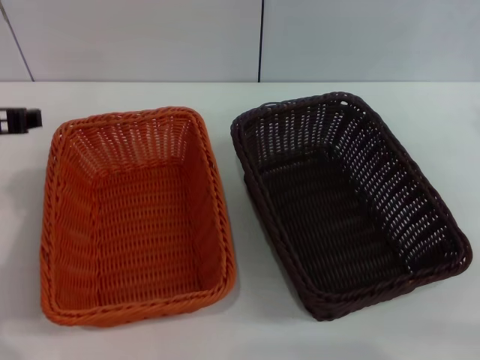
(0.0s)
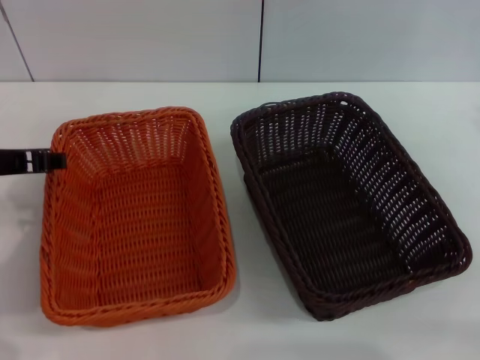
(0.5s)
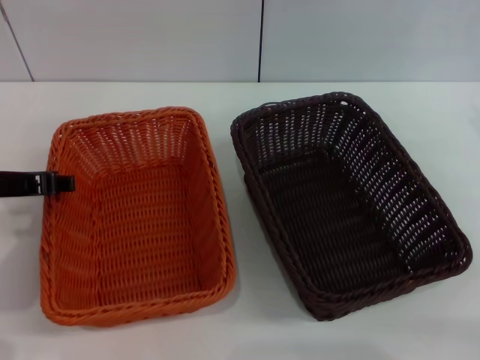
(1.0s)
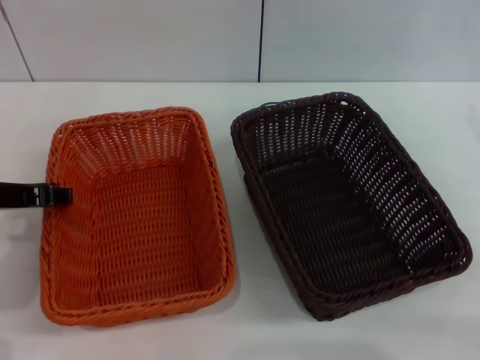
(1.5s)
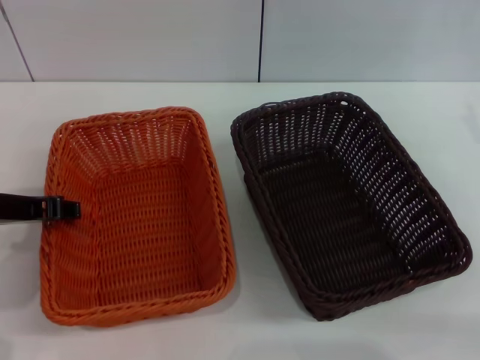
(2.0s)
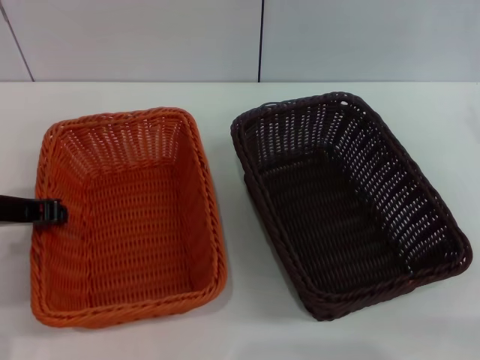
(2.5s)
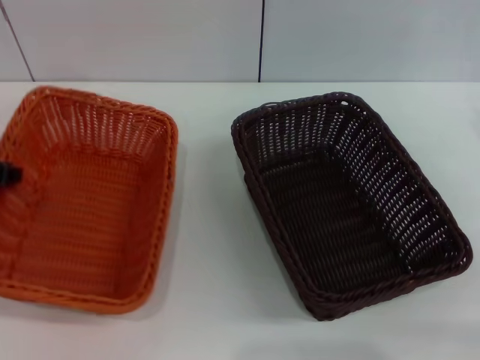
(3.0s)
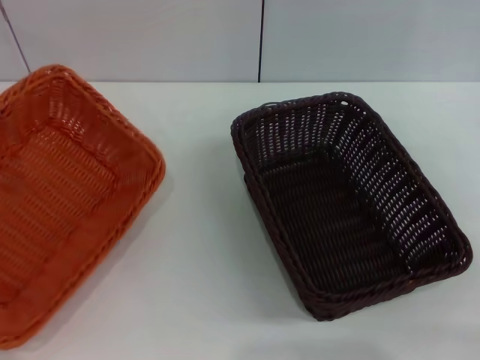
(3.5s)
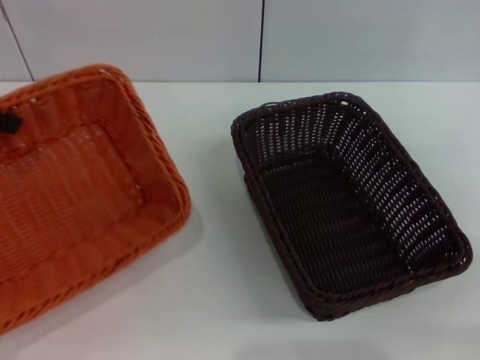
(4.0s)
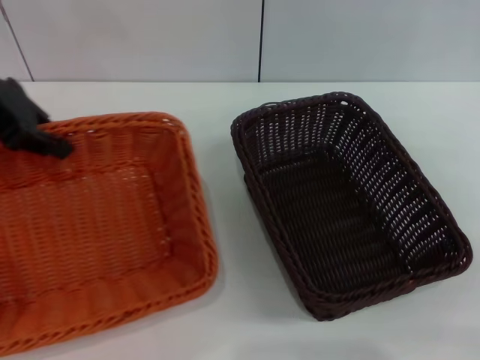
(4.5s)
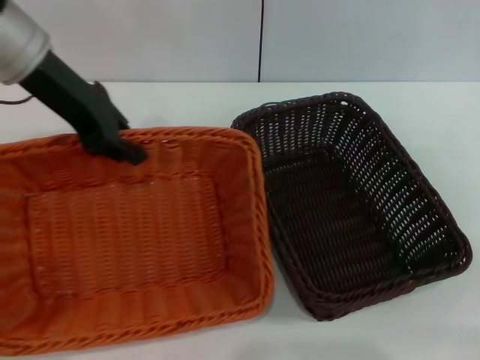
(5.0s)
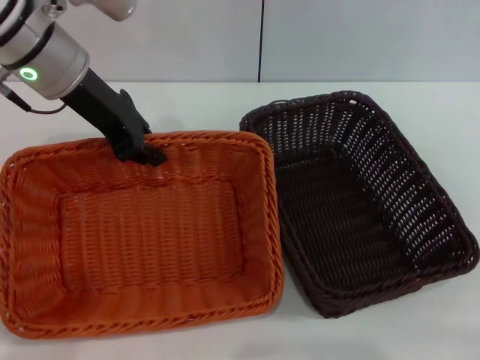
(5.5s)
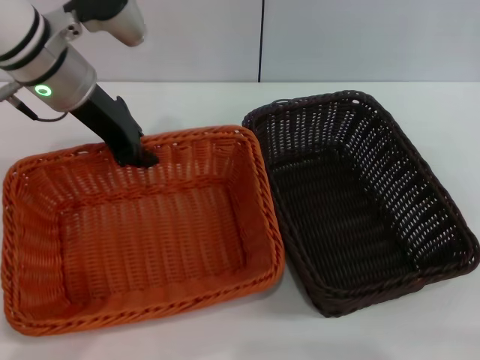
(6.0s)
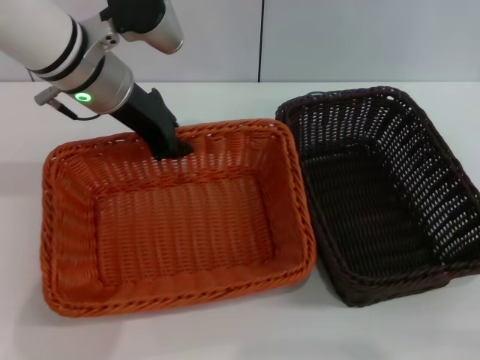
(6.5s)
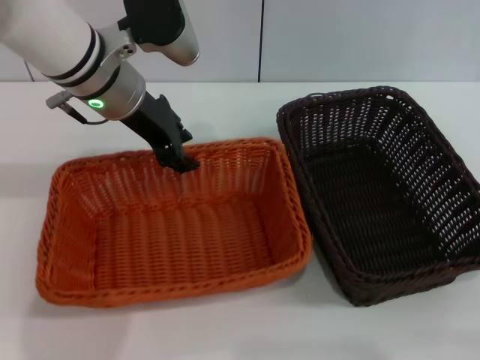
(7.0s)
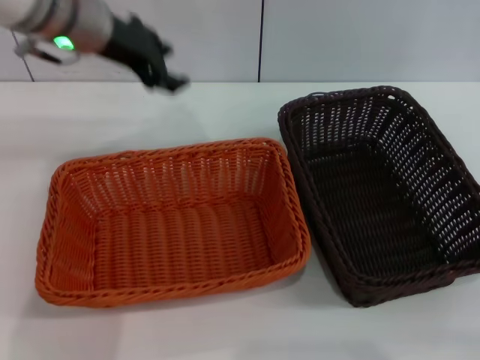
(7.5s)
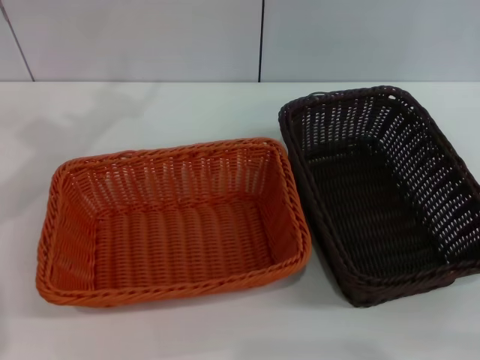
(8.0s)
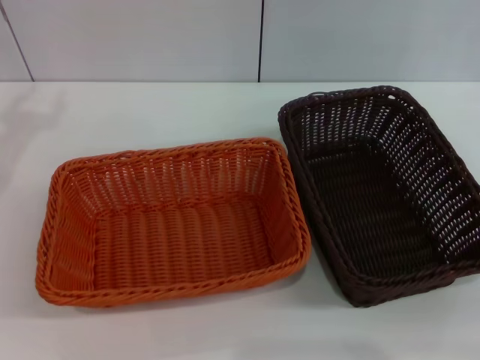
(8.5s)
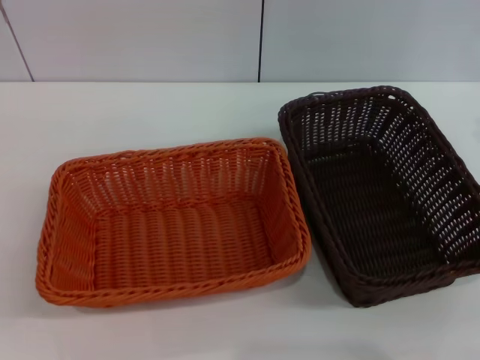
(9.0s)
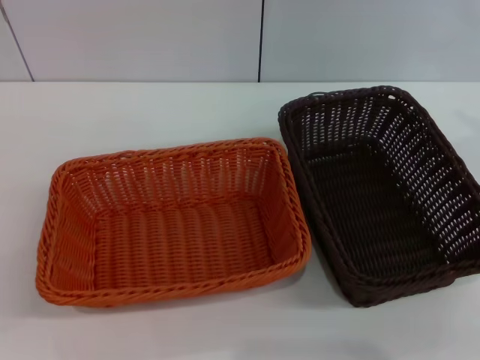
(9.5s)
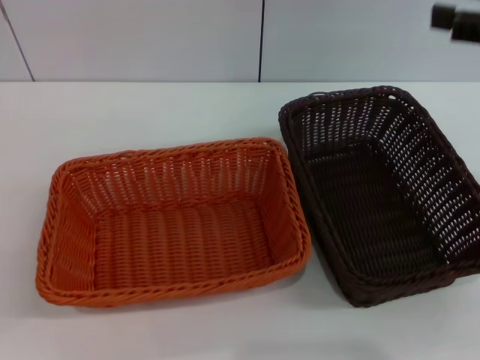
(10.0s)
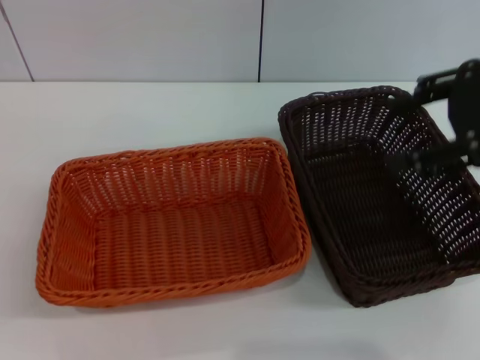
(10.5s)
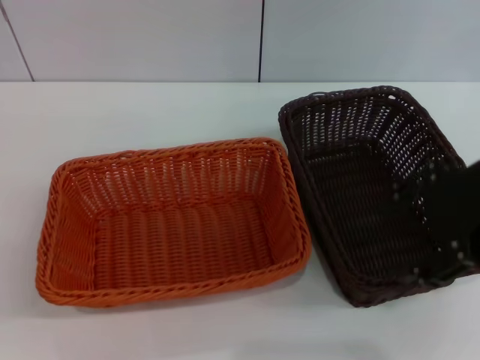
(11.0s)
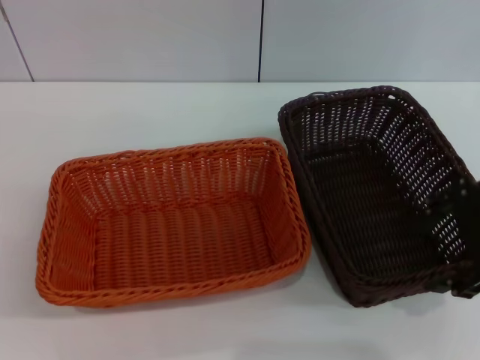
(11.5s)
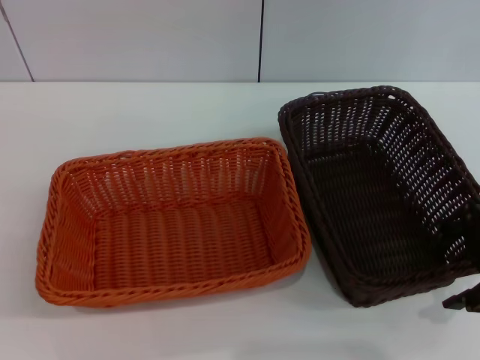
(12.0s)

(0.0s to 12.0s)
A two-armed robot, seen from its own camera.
Step, 0.0s - 3.0s: Pick up the light basket with the left gripper.
Step, 3.5s - 6.5s: Place the light basket in the center of view with the left gripper.
0.0s - 2.0s: The left gripper goes approximately 5 cm downward.
2.0s - 4.0s: The left gripper heads upward, to the left and forward, covering approximately 15 cm, and closes its fingers.
4.0s - 6.0s: The left gripper travels to the right, forward and downward by some 20 cm.
6.0s - 8.0s: The left gripper goes about 10 cm to the left and upward, and opens.
8.0s - 10.0s: The right gripper goes approximately 15 cm upward and to the left.
10.0s - 12.0s: The right gripper heads downward, covering roughly 5 cm.

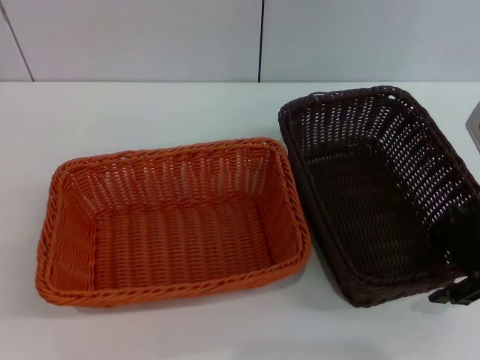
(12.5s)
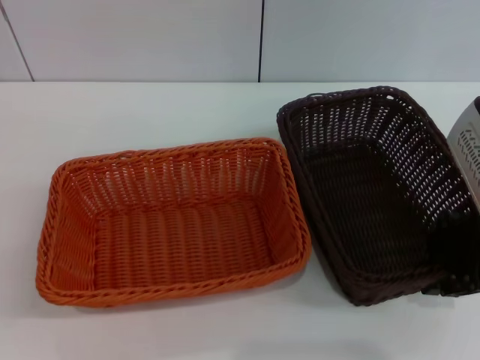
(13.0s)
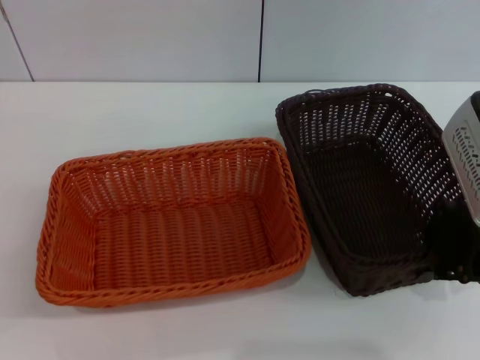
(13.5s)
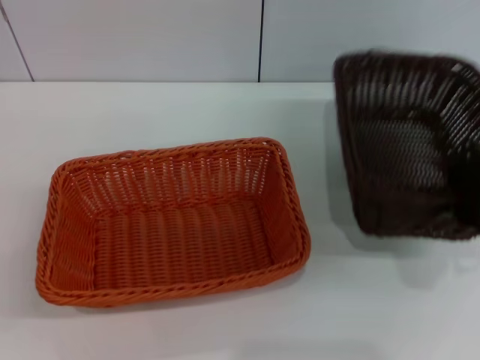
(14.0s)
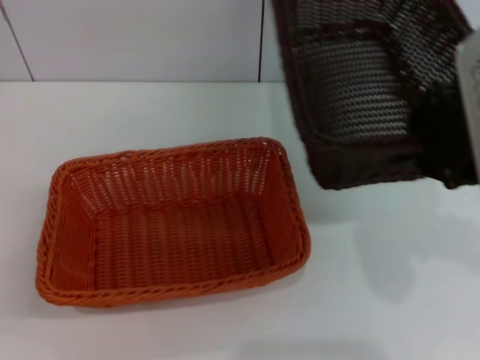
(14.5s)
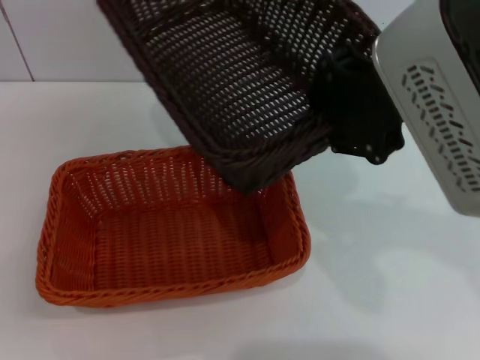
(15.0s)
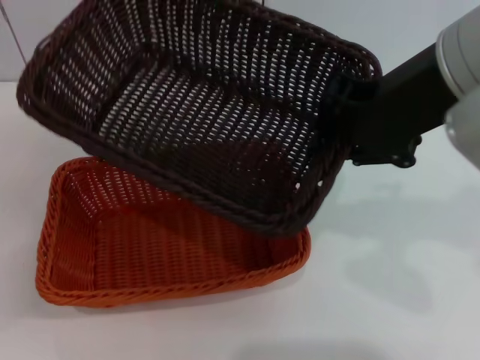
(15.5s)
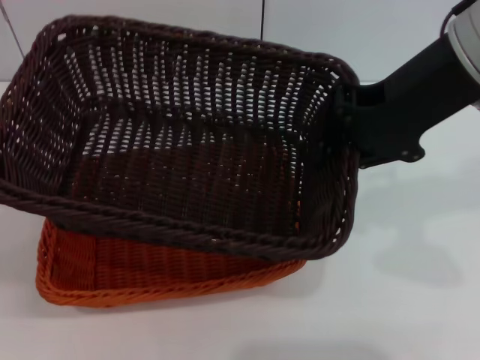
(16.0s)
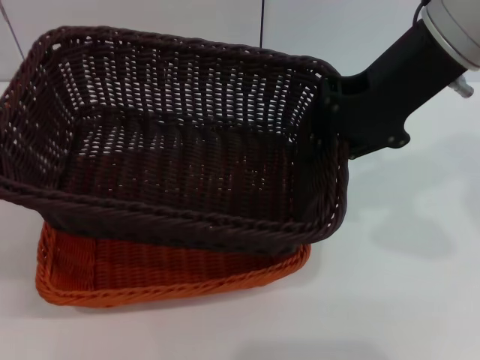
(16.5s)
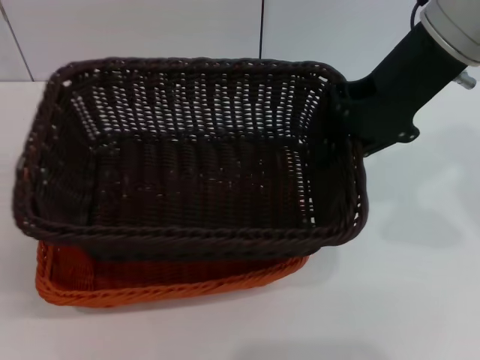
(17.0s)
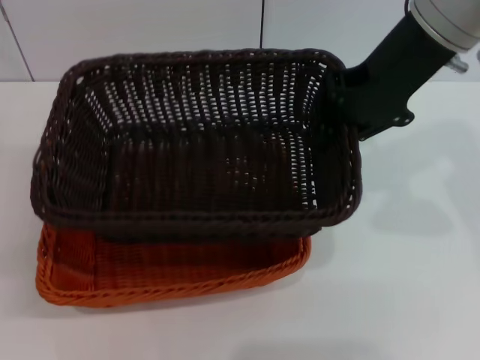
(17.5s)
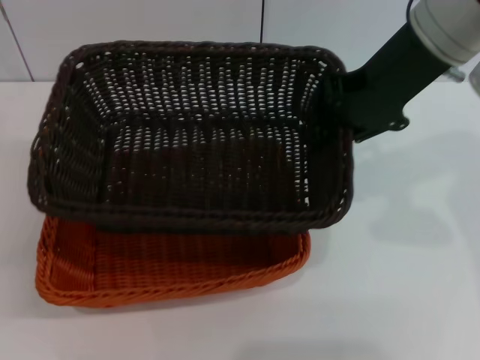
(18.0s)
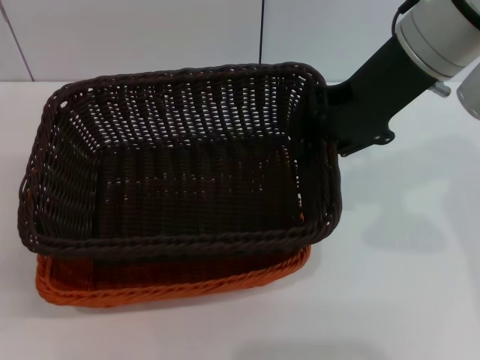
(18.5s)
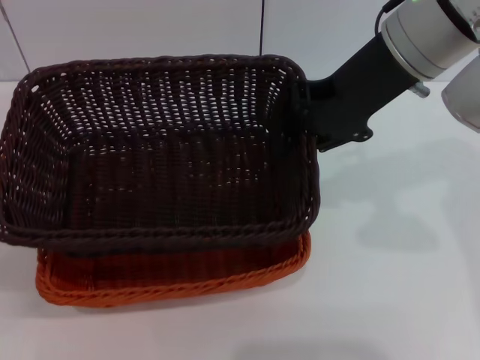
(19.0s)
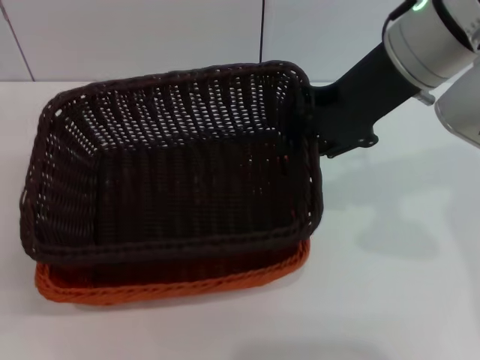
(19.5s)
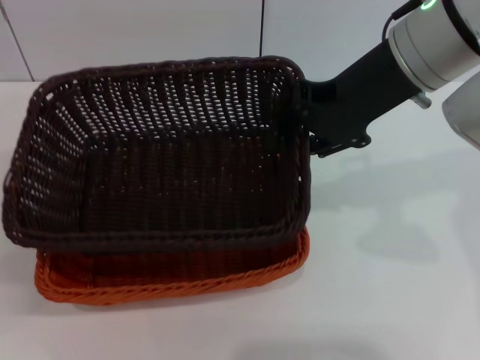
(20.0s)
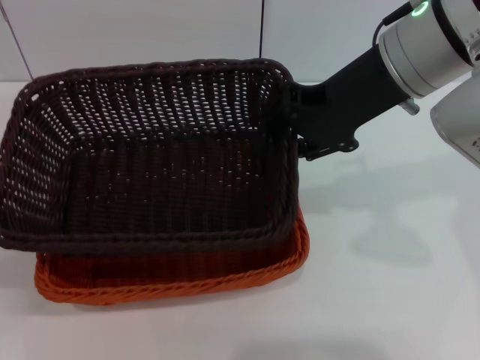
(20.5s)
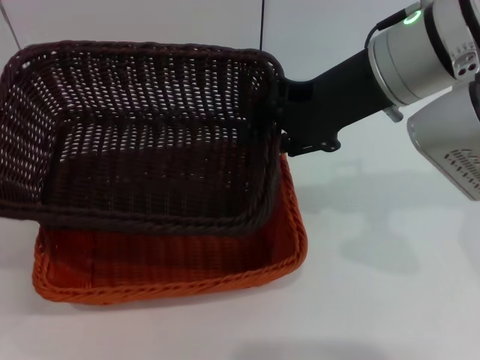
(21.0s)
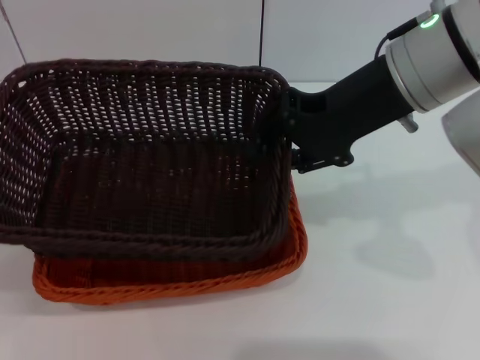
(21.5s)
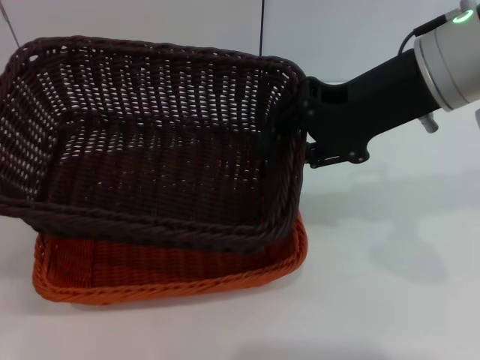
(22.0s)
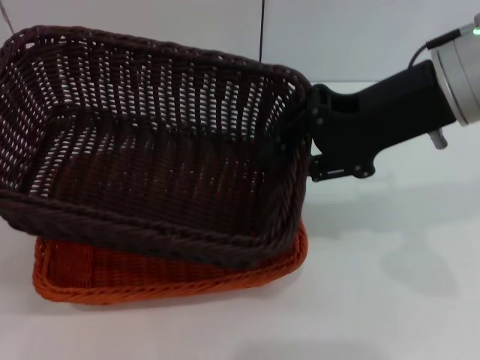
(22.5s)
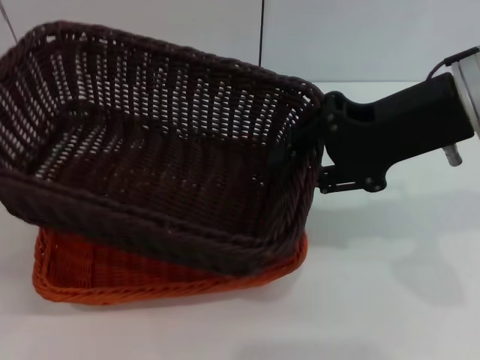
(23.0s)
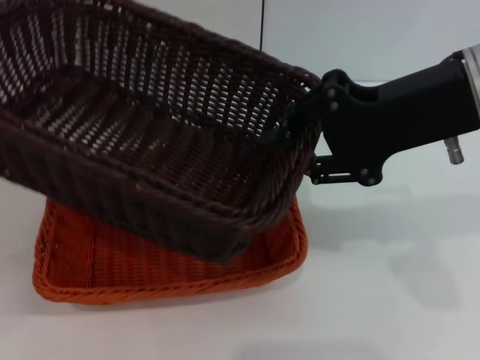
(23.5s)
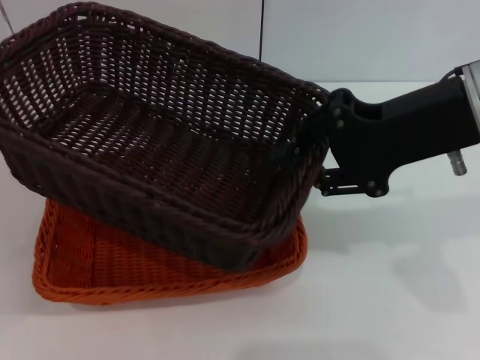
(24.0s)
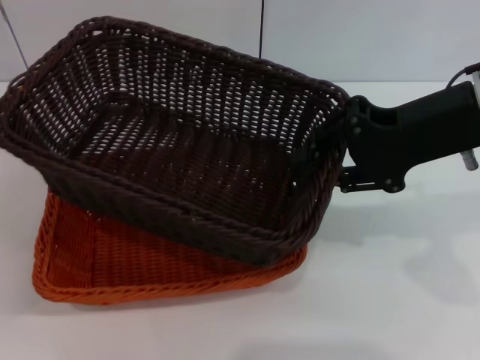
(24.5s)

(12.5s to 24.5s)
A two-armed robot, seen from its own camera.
12.5s - 14.5s: The right gripper heads upward and to the left, covering approximately 10 cm, and closes its fingers.
14.5s - 16.5s: The right gripper is displaced forward by approximately 10 cm.
16.5s - 20.5s: There are only small adjustments of the grippers.
22.5s - 24.5s: The grippers make only small movements.

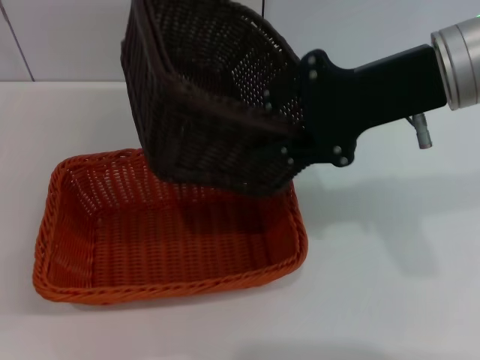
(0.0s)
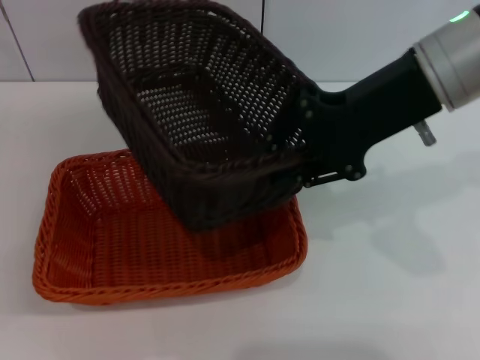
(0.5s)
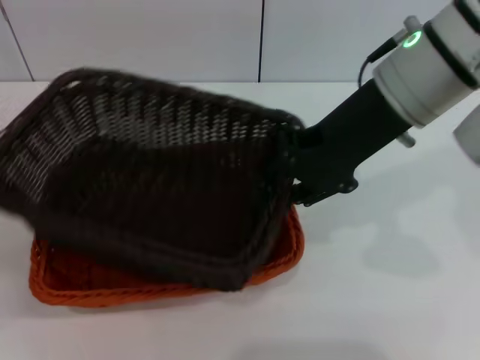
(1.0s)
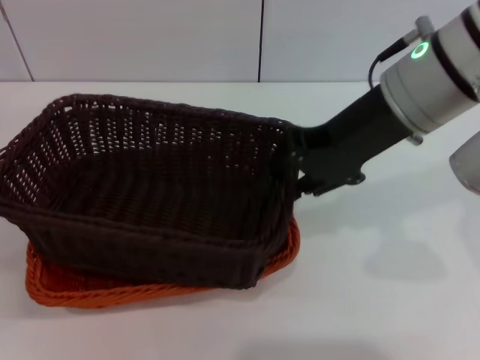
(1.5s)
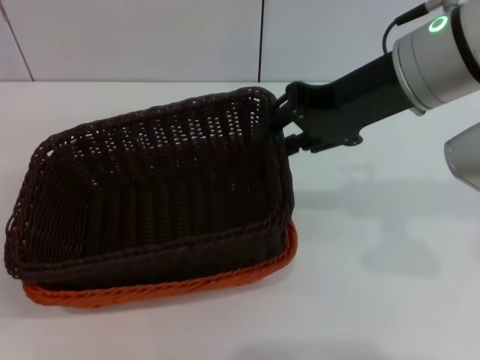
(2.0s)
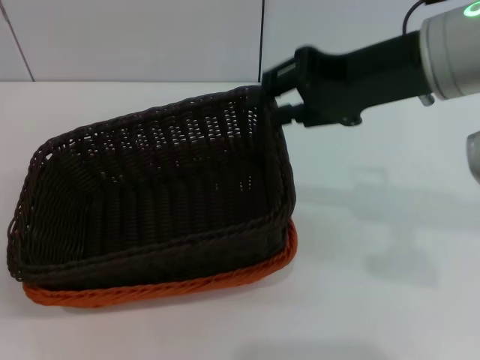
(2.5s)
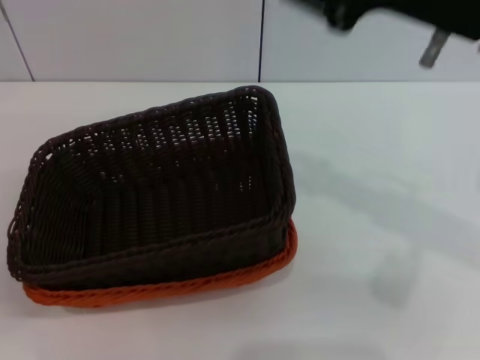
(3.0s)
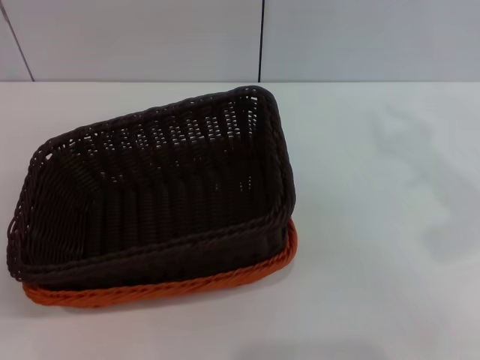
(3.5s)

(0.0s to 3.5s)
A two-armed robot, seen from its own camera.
Step, 0.0s - 2.0s: Place the dark basket on the light basket with the right gripper.
2.0s - 3.5s: The right gripper travels to the right by some 10 cm.
